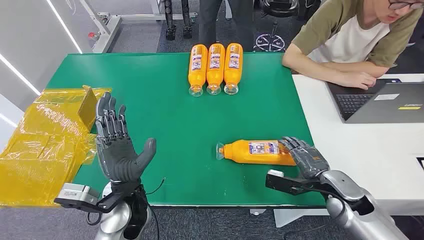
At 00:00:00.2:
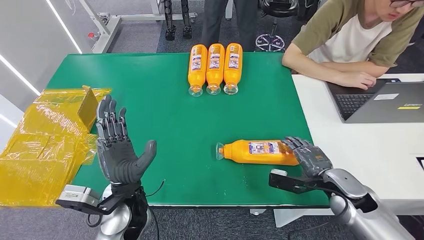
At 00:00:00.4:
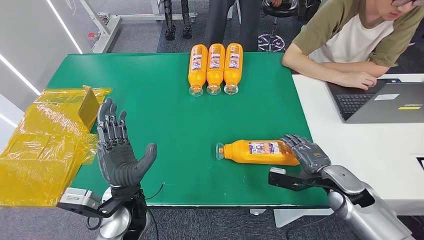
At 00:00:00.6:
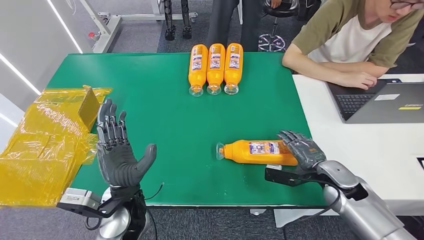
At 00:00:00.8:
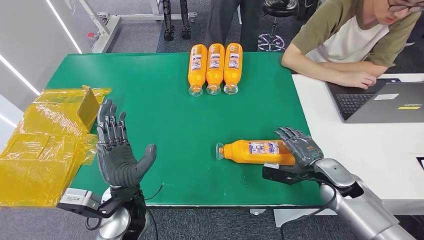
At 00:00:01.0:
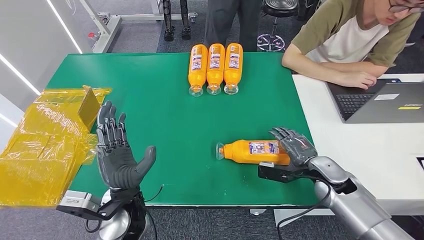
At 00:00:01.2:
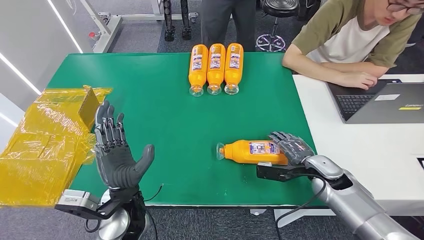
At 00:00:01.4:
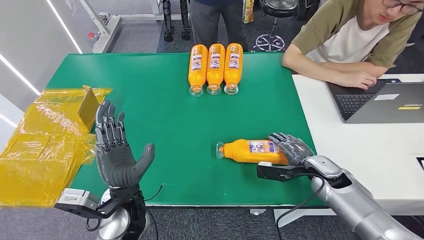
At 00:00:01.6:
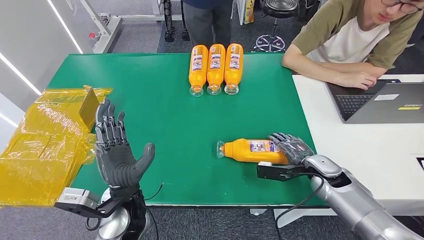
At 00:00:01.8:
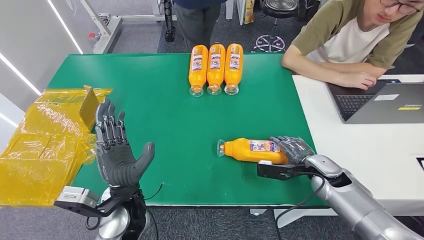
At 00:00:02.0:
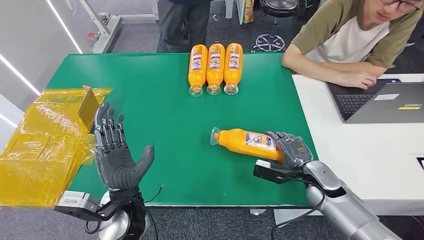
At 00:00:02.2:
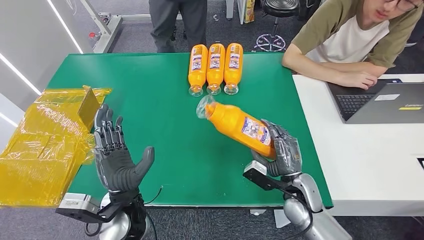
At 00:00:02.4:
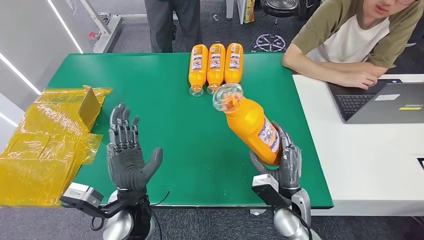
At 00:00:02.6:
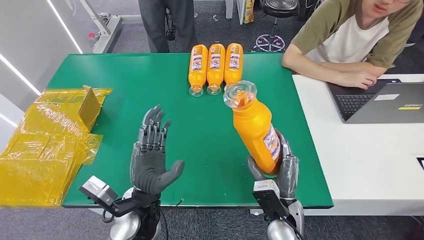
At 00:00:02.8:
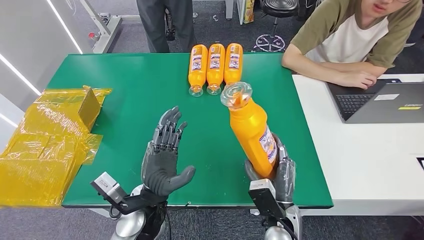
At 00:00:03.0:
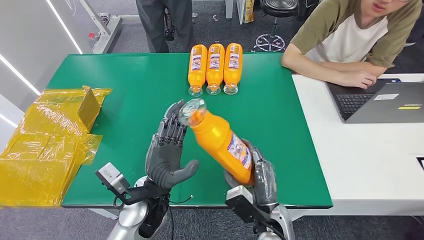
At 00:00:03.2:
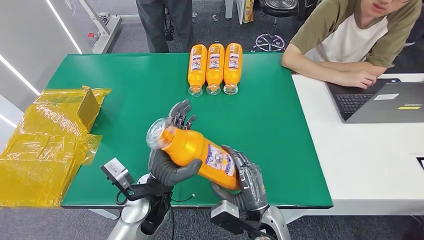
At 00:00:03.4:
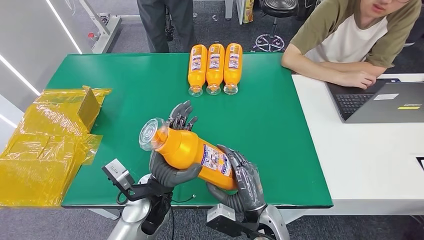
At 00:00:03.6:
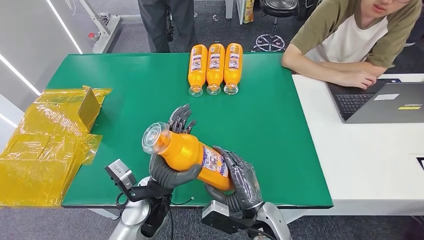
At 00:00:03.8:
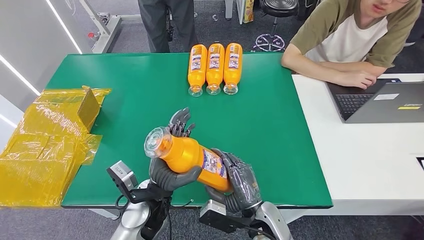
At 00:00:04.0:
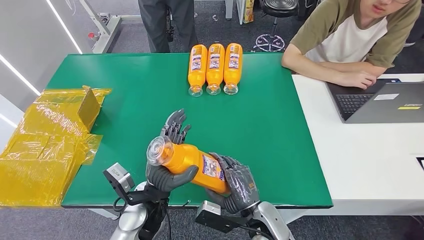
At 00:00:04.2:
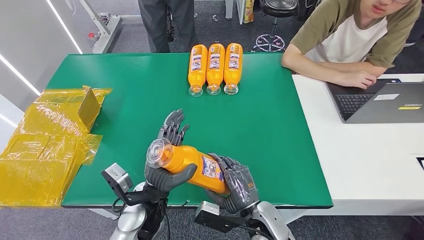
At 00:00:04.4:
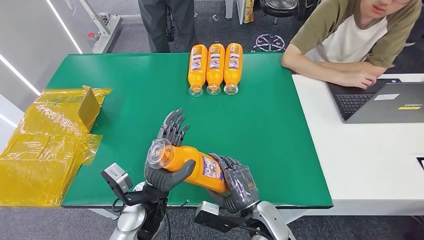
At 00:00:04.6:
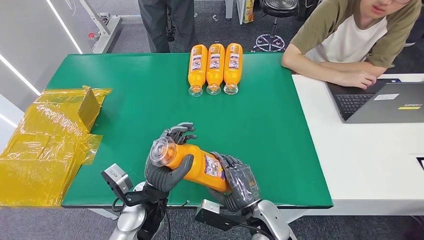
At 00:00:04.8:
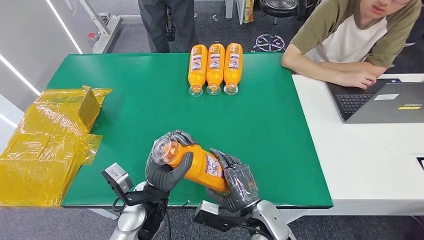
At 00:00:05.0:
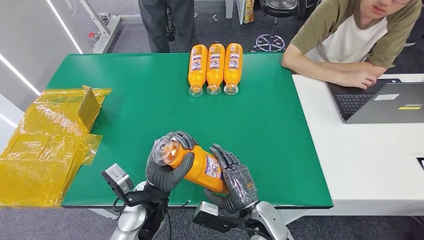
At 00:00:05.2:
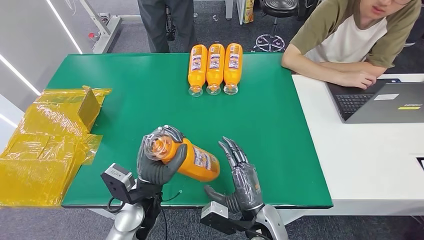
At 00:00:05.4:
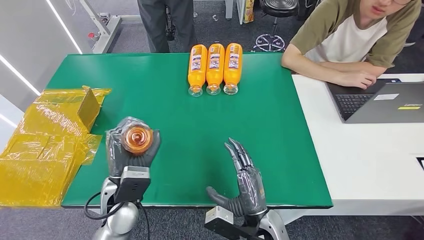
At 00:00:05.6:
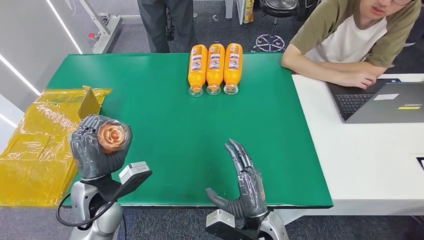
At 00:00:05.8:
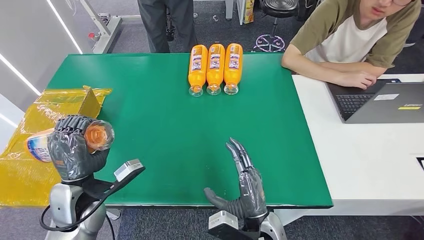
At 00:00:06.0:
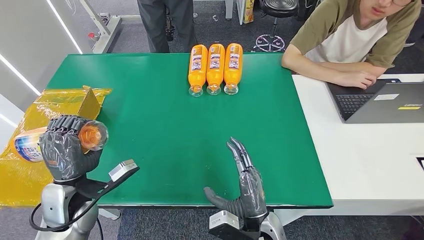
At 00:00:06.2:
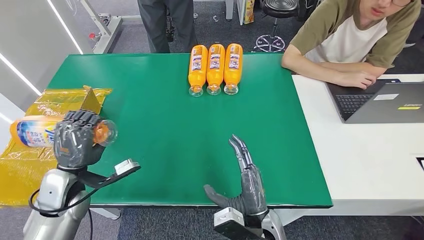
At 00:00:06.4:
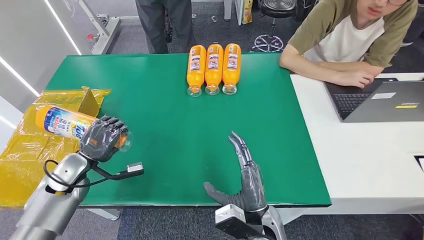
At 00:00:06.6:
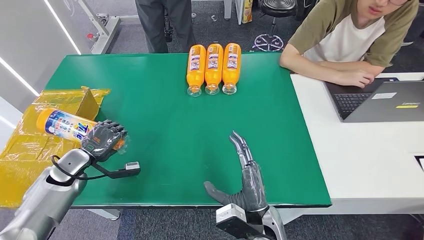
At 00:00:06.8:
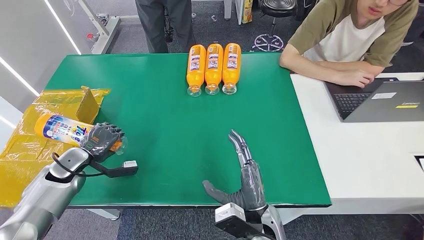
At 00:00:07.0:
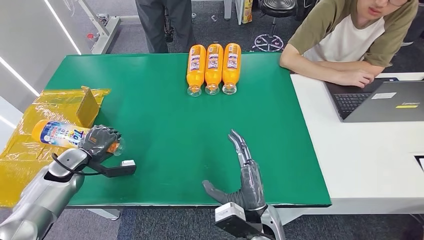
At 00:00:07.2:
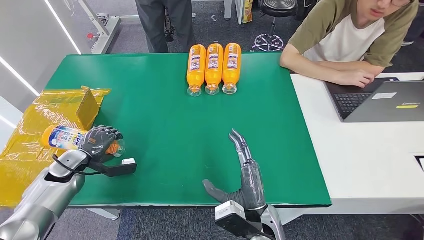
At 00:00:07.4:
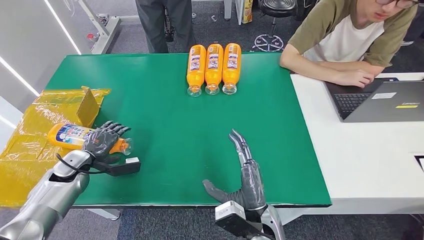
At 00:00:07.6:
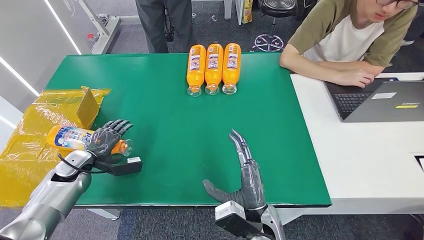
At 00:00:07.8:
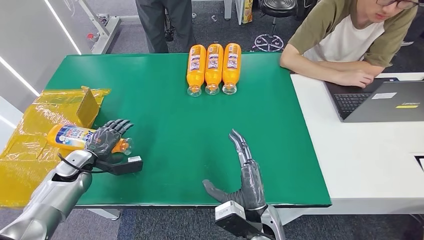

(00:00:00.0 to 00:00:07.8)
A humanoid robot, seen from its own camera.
Step, 00:00:00.0 - 00:00:02.4: Pick up the bottle from the table.
Step, 00:00:02.6 - 00:00:07.8: Turn the bottle to the front side.
00:00:04.6 - 00:00:06.2: The left hand goes some 20 cm to the left.
00:00:06.2 - 00:00:07.8: The left hand travels to the left and downward by some 10 cm.
